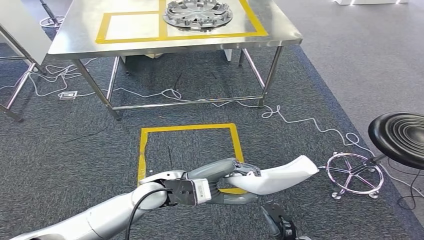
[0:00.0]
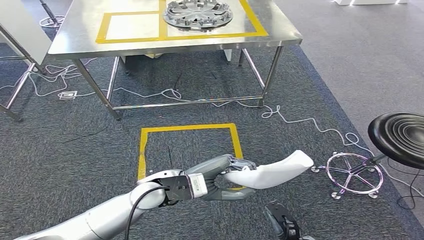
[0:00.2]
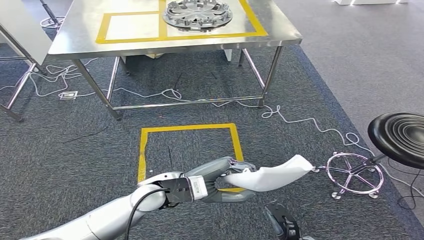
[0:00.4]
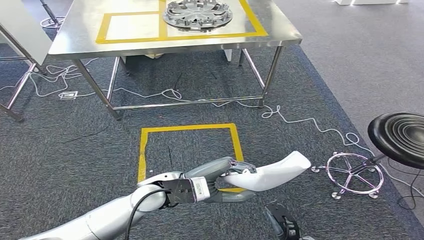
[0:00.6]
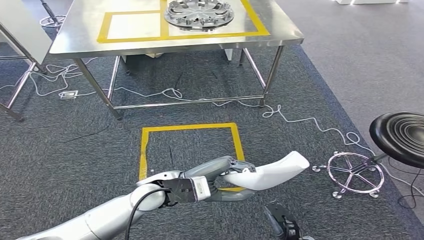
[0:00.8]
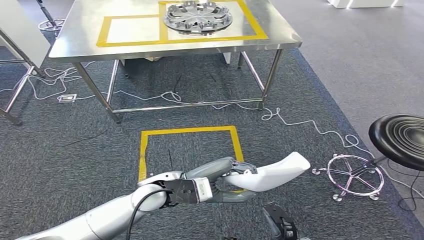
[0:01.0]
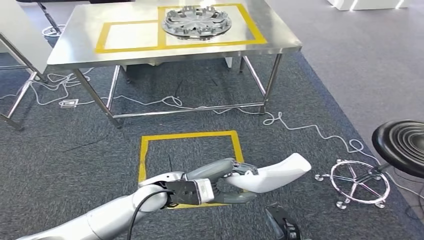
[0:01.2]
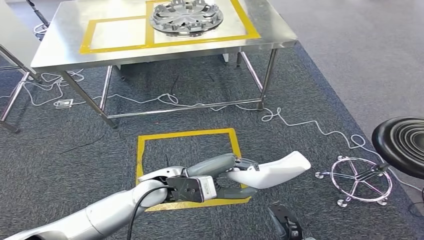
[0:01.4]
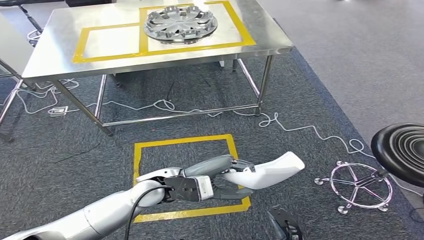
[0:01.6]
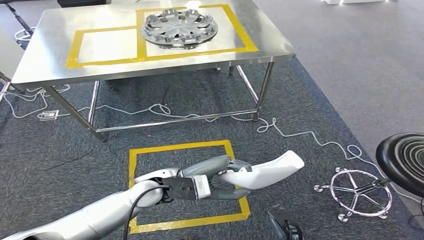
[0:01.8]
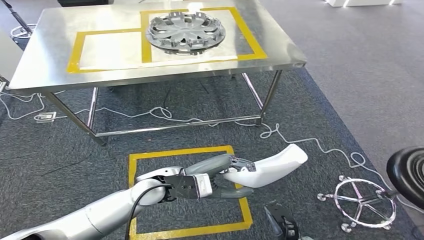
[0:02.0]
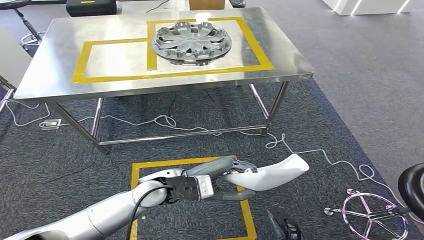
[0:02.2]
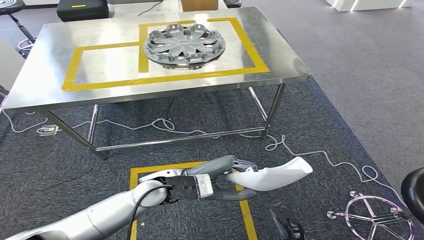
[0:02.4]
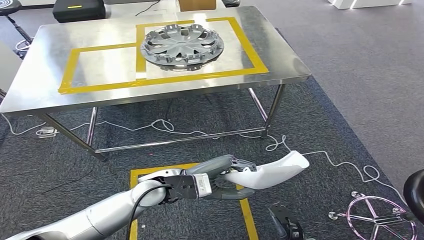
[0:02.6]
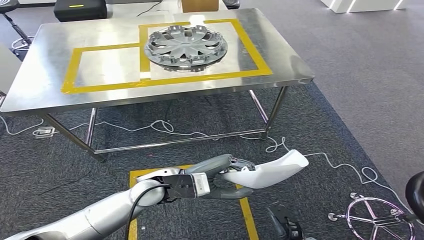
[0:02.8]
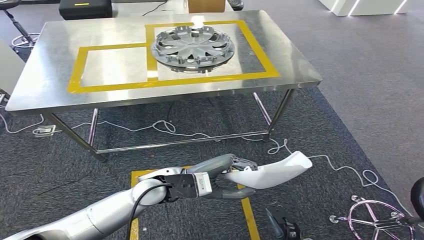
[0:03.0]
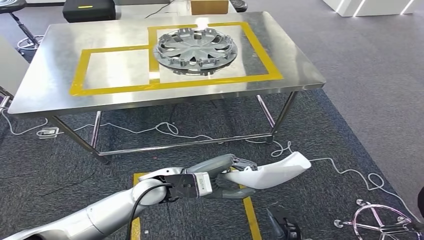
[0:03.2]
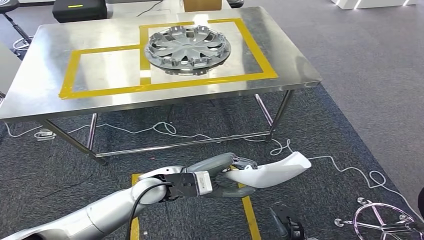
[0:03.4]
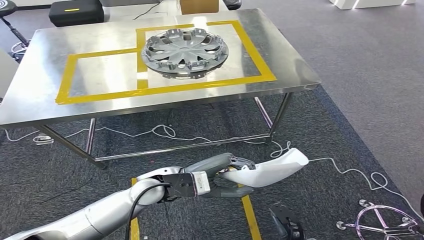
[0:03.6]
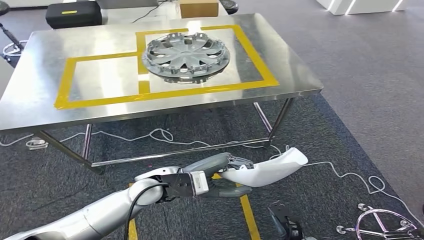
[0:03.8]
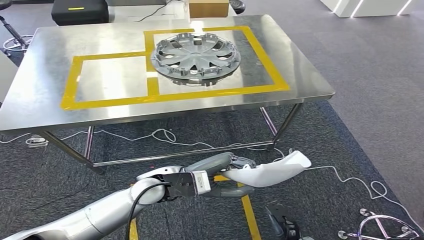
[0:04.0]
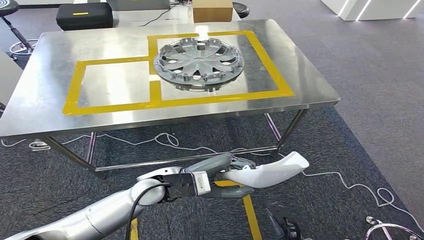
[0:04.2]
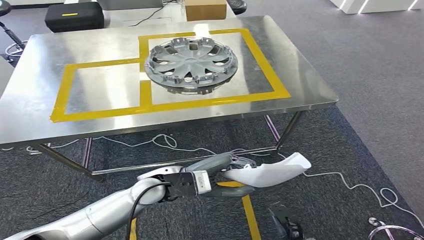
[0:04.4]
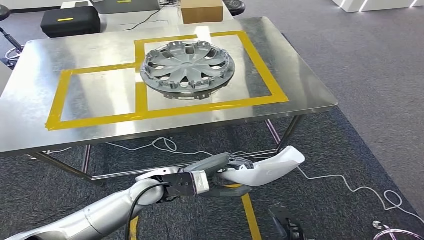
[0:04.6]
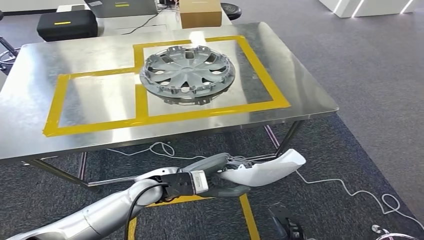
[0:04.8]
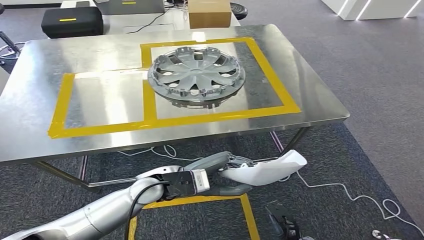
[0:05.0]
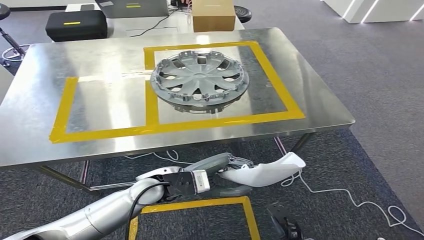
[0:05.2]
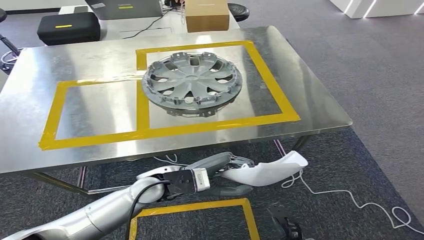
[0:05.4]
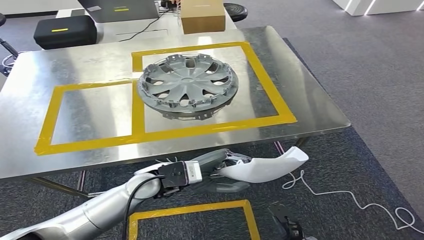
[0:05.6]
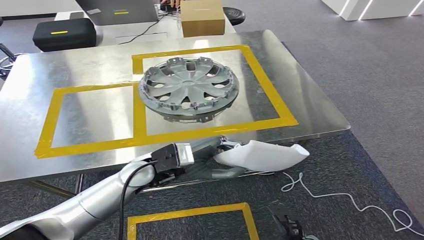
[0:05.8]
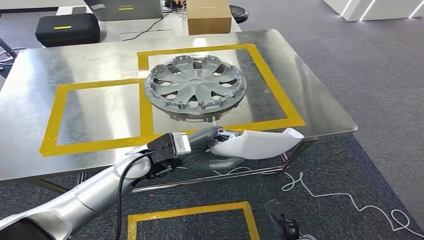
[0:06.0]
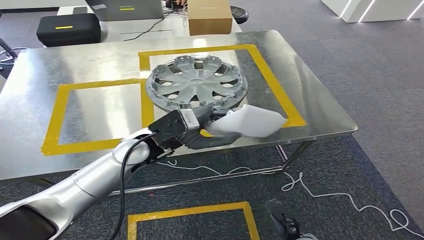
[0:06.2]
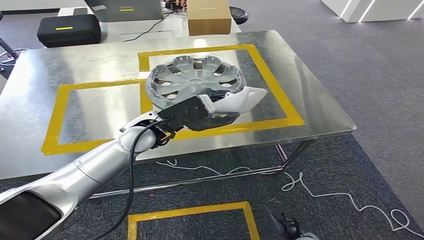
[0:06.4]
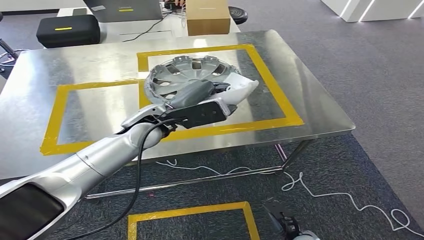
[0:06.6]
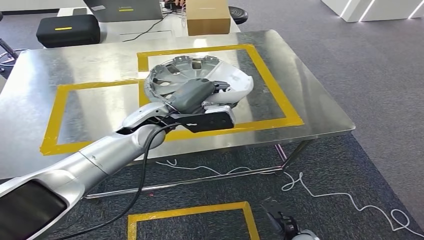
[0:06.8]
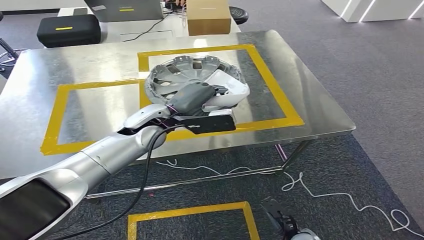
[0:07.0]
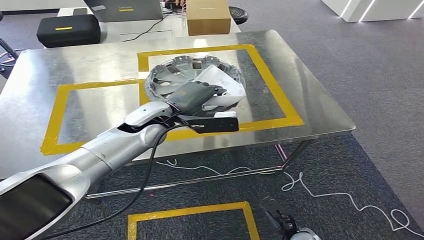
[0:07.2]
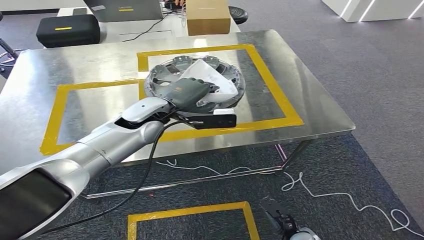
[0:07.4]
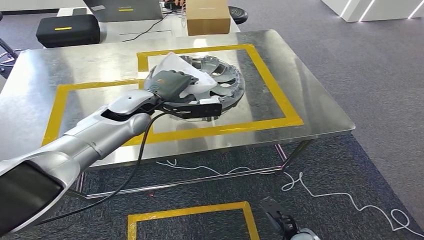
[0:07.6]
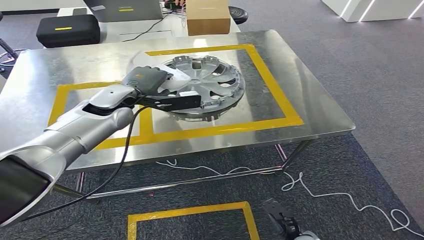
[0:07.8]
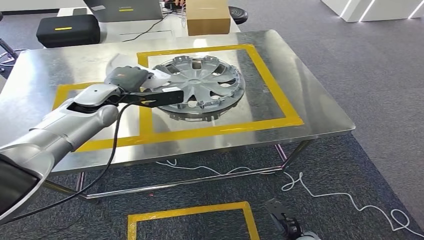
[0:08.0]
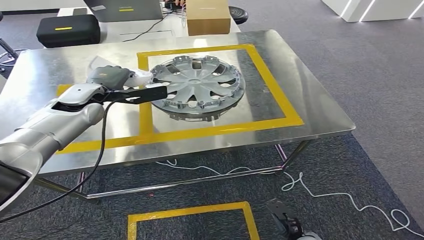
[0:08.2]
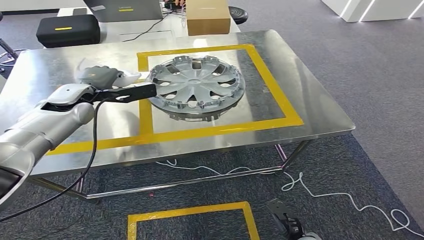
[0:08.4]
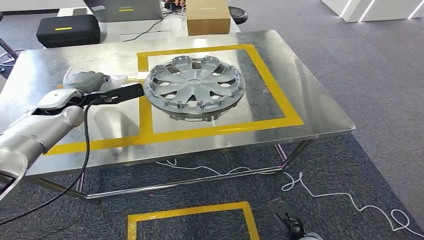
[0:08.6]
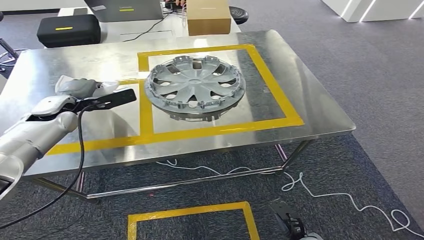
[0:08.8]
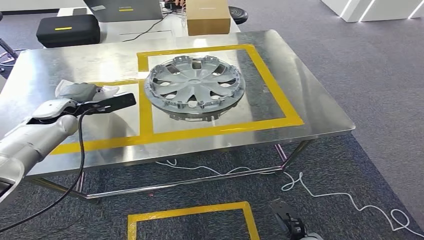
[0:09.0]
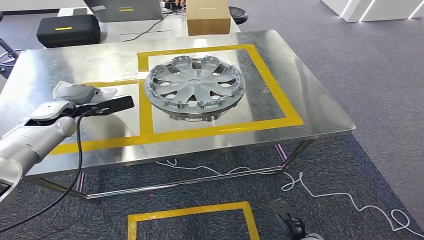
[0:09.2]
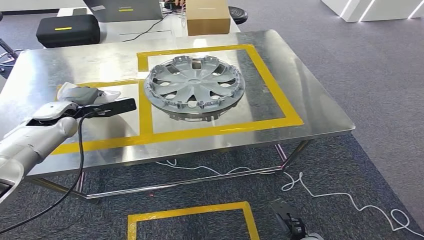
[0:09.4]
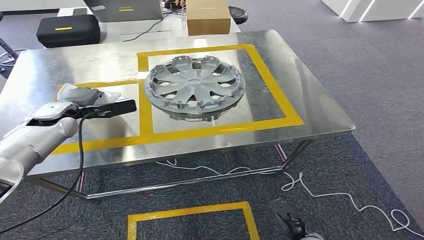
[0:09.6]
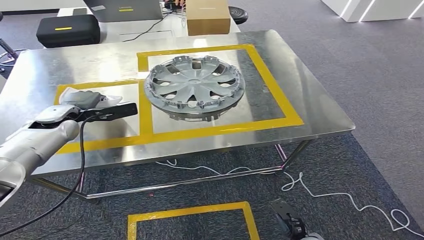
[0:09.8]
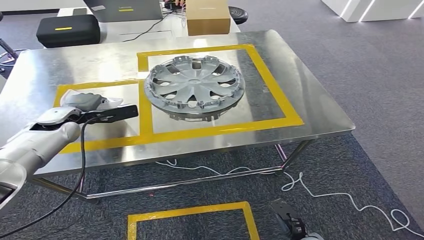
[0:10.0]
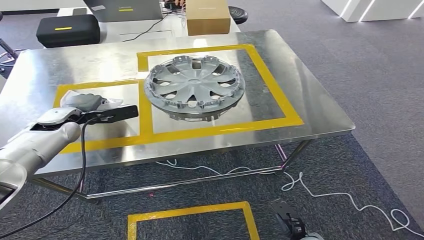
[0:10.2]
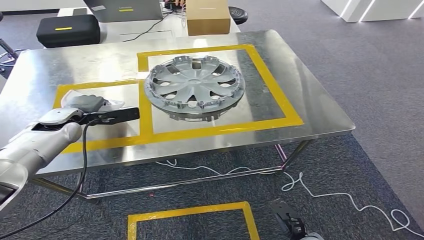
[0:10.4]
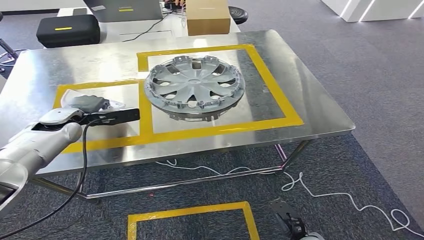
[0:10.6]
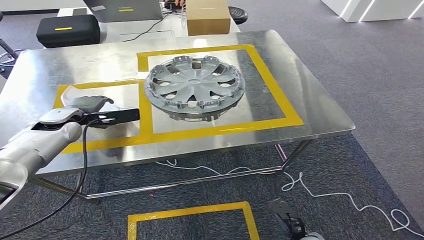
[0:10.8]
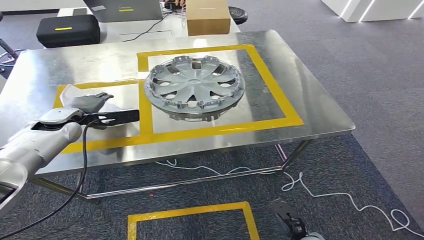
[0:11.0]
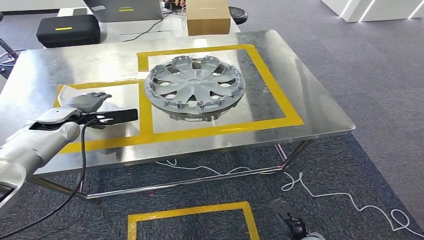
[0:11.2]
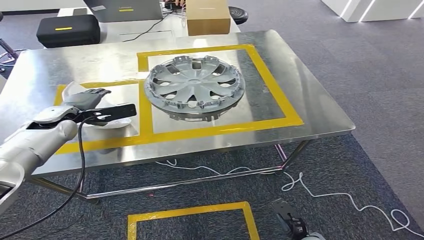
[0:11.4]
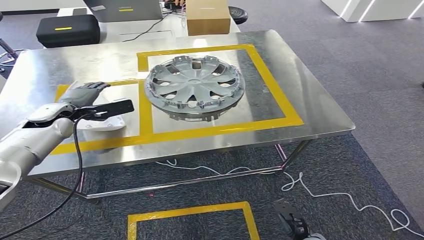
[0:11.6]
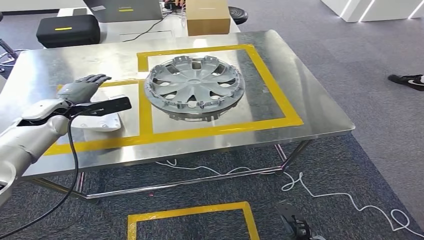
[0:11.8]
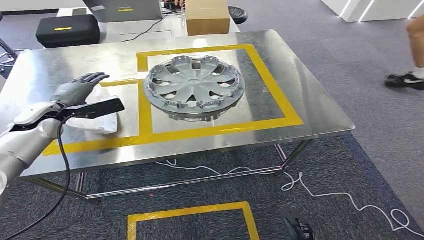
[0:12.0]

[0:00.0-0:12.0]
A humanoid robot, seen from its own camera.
Step, 0:00.0 to 0:08.4: Move the small parts to the workbench.
0:07.6 to 0:09.0: The left hand shifts roughly 20 cm to the left.
0:09.0 to 0:10.4: The hands stay close to where they were, moving slightly.

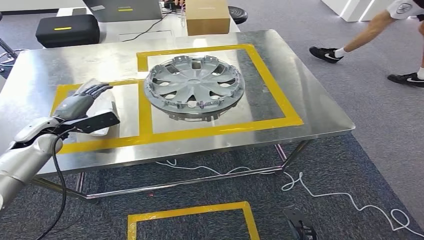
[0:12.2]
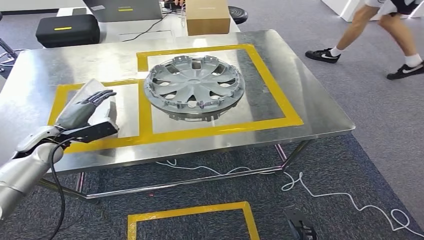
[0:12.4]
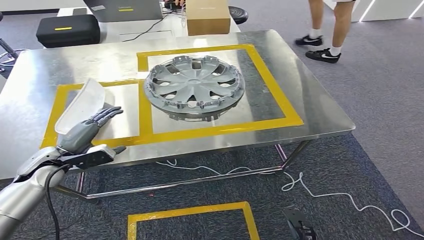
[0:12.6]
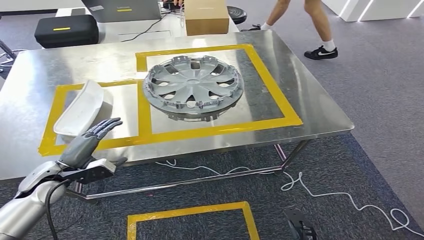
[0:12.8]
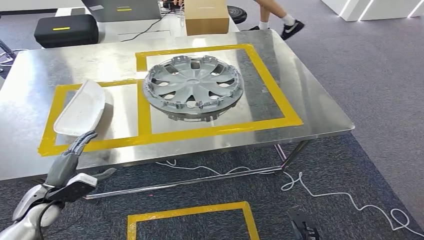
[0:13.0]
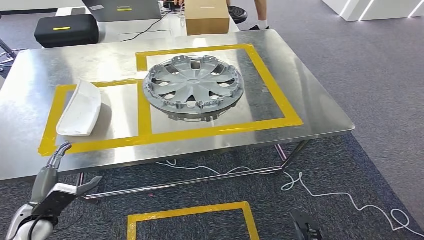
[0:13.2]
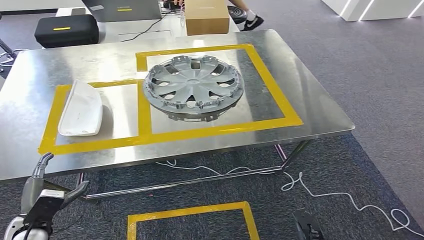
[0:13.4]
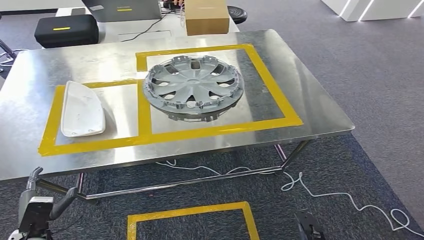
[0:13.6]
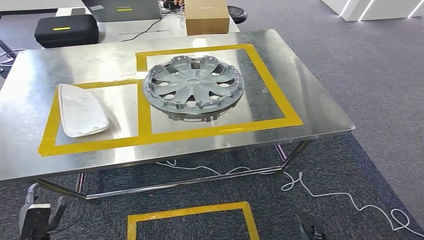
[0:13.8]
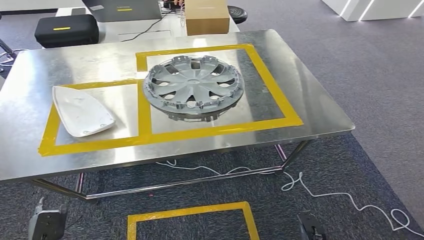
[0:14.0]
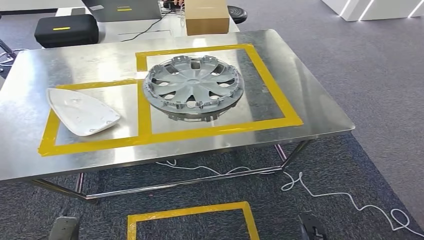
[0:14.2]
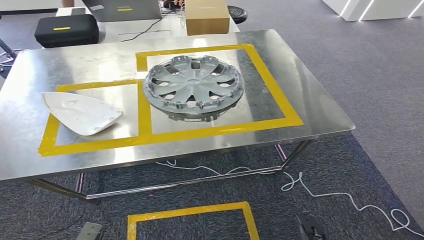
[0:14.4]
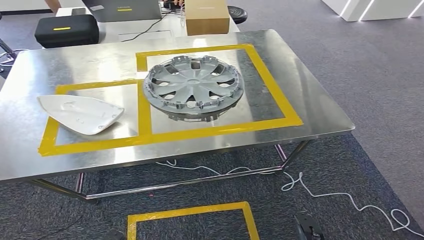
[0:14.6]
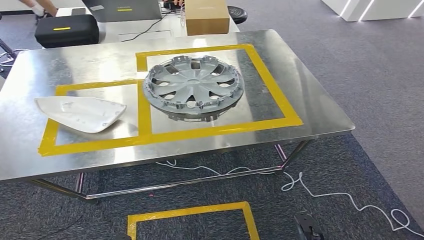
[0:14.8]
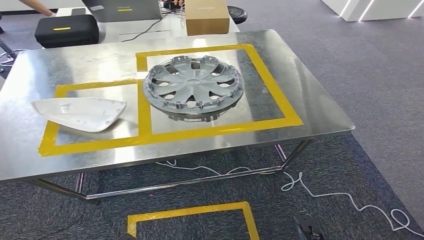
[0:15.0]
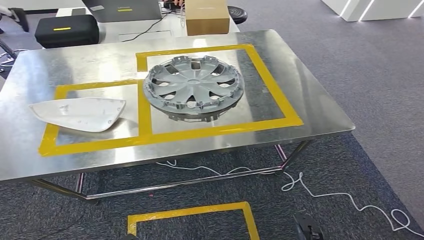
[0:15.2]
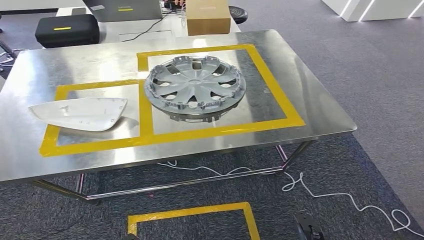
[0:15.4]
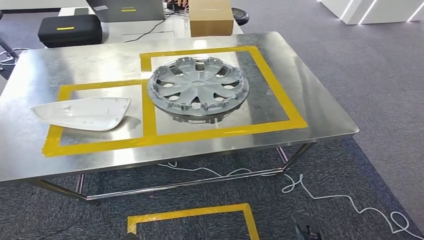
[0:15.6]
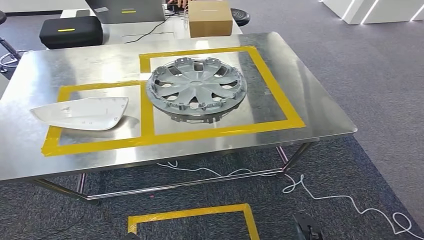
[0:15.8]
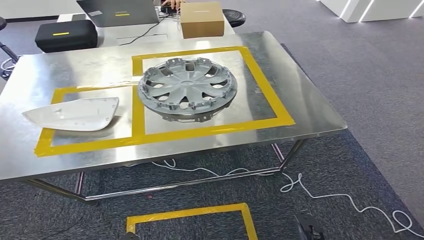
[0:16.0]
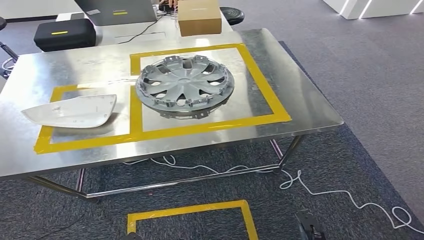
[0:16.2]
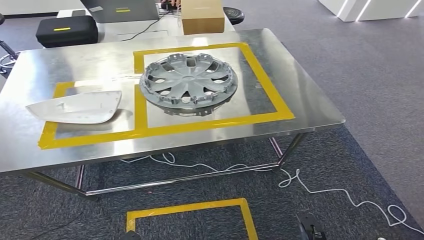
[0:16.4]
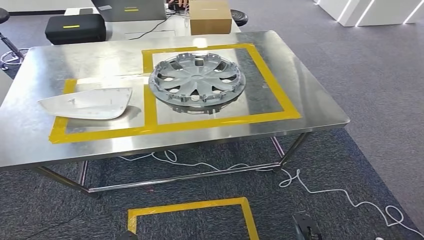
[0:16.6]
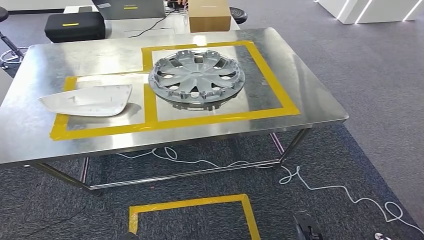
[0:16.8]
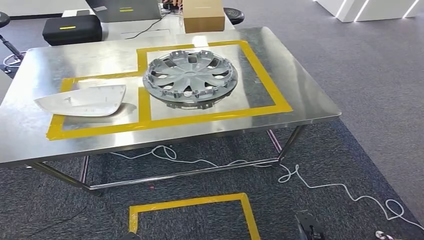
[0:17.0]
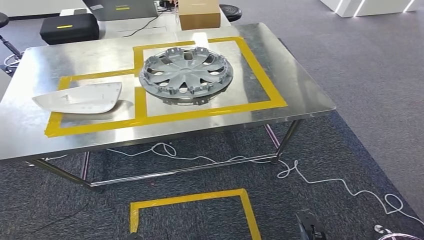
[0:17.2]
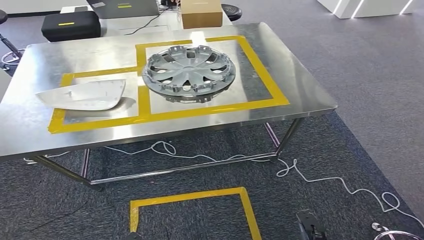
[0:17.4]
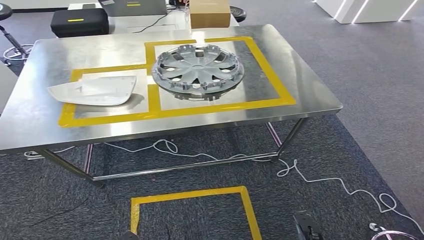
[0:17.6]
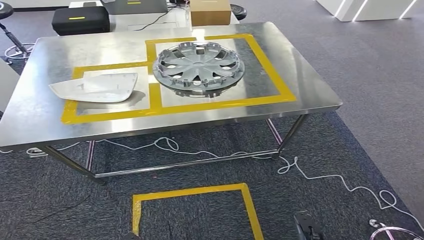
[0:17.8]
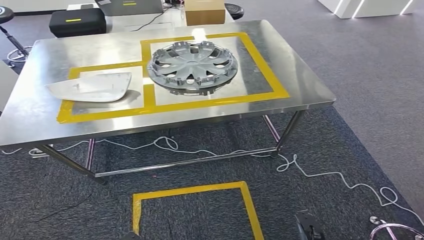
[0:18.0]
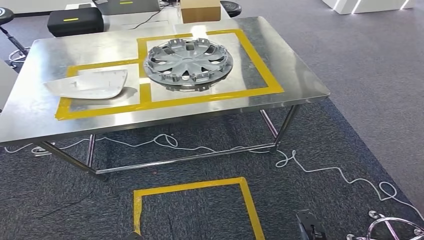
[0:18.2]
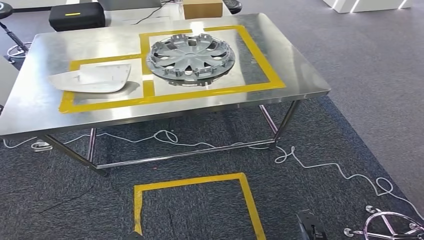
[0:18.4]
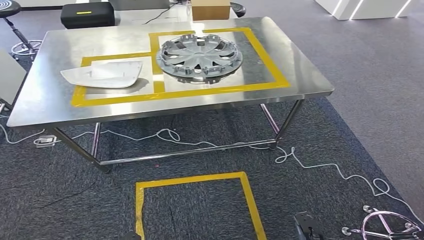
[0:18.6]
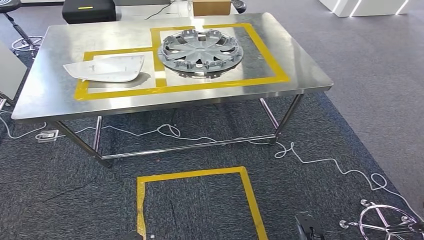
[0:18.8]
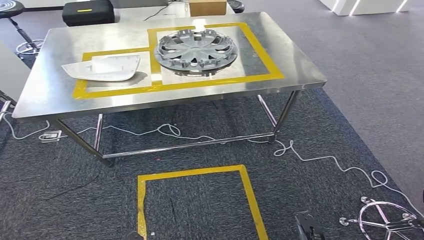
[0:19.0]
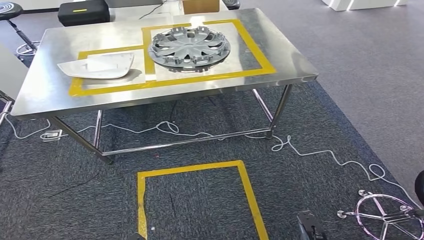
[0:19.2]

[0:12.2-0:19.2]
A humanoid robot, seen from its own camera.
0:12.2 to 0:13.6: The left hand is displaced backward and downward by approximately 35 cm.
0:13.6 to 0:15.0: The left hand shifts about 20 cm to the right, backward and downward.
0:15.0 to 0:16.4: Both hands stay about where they are.
